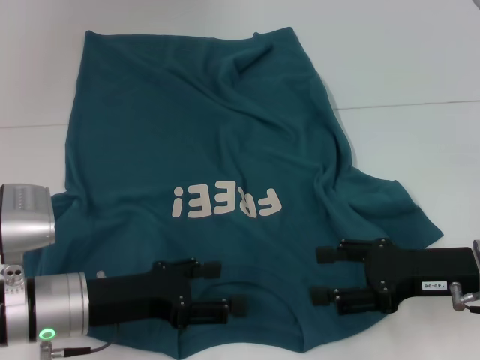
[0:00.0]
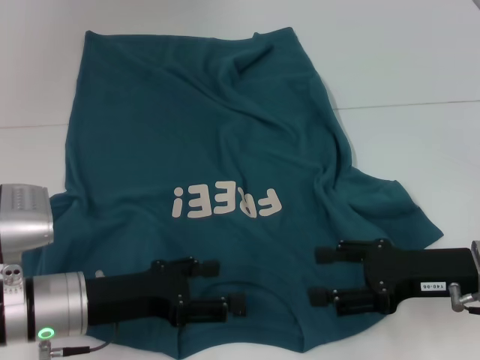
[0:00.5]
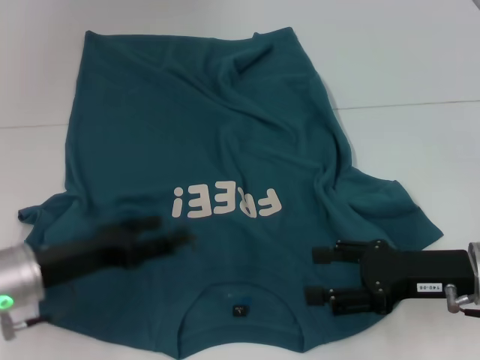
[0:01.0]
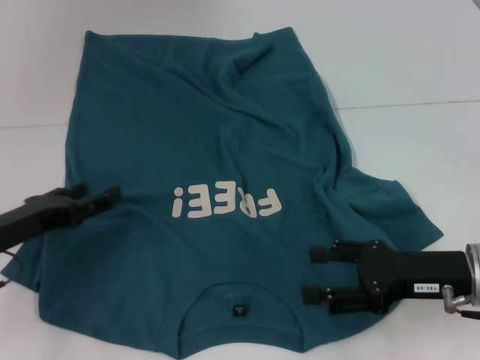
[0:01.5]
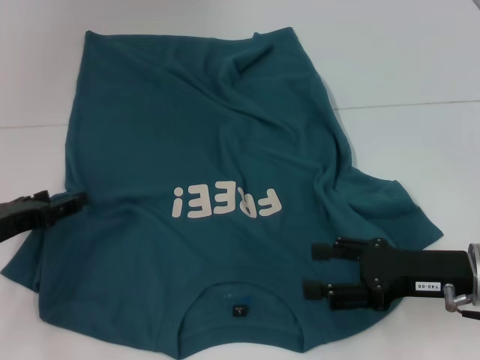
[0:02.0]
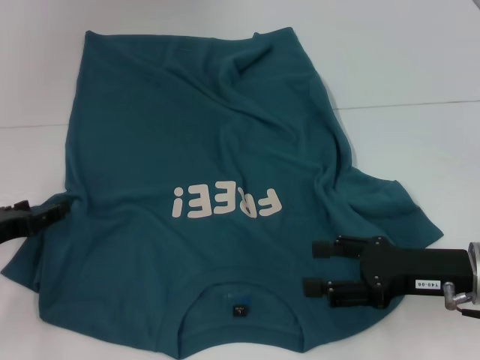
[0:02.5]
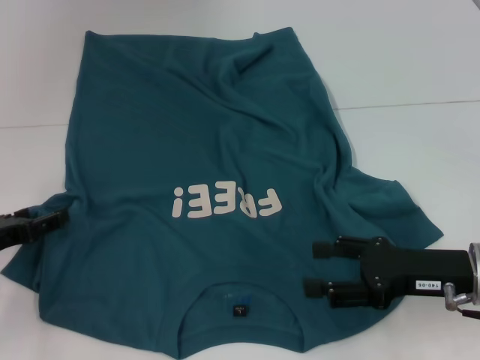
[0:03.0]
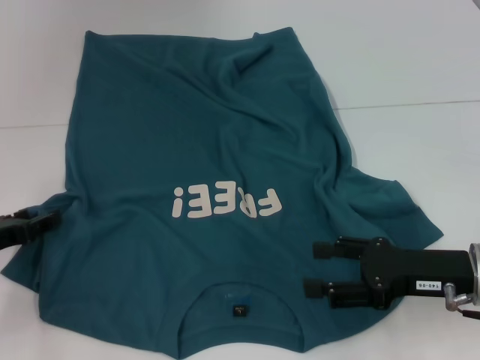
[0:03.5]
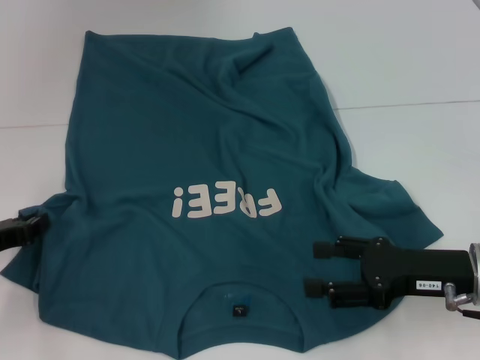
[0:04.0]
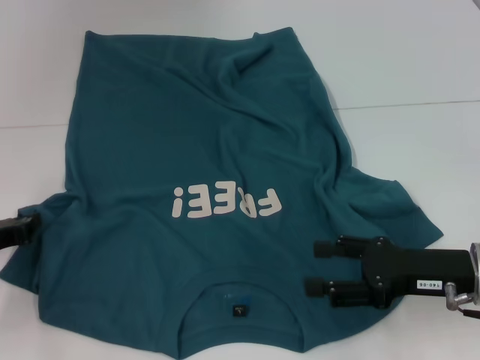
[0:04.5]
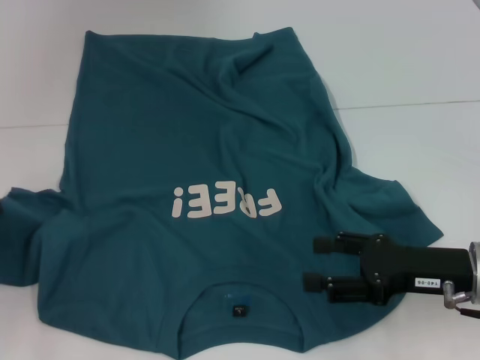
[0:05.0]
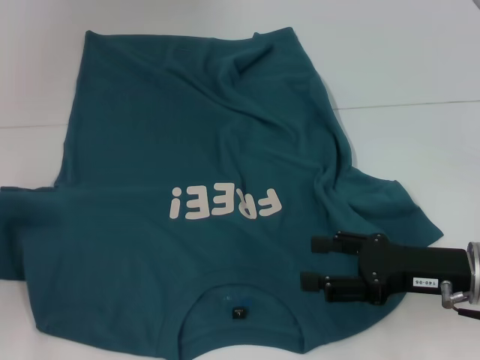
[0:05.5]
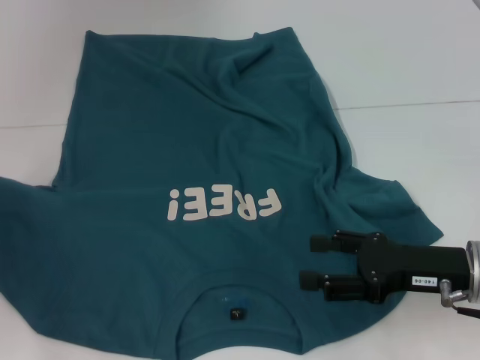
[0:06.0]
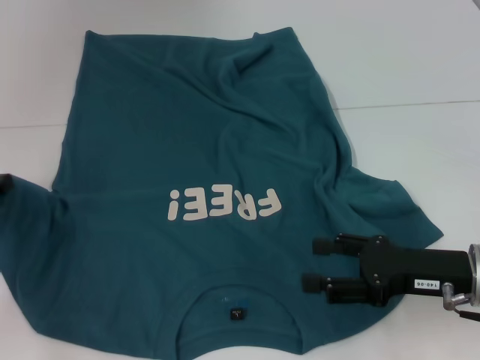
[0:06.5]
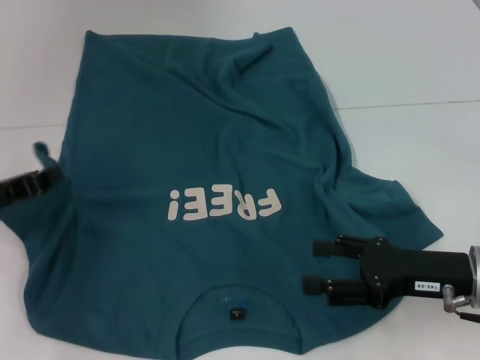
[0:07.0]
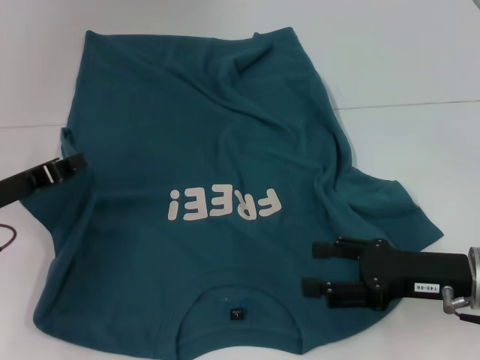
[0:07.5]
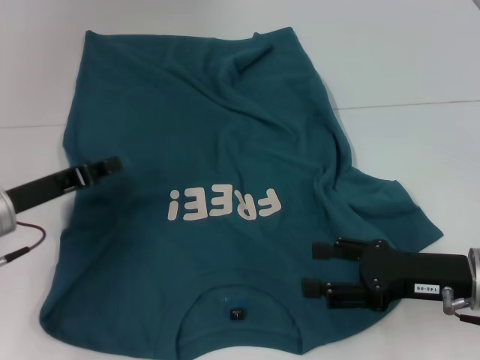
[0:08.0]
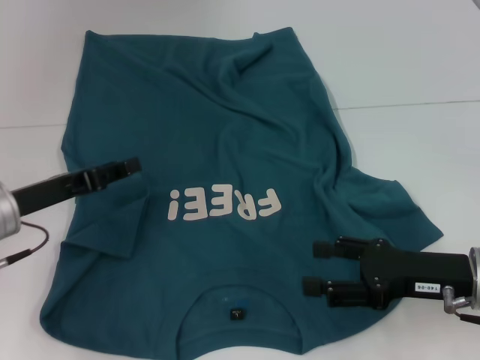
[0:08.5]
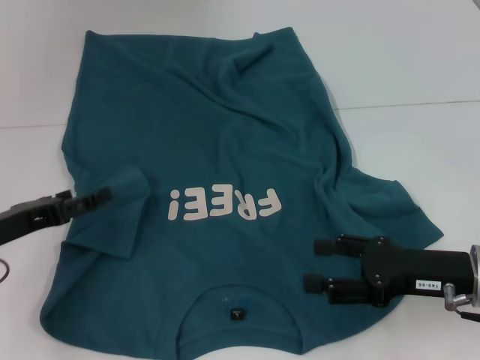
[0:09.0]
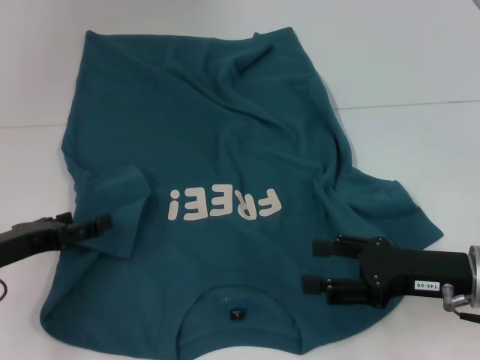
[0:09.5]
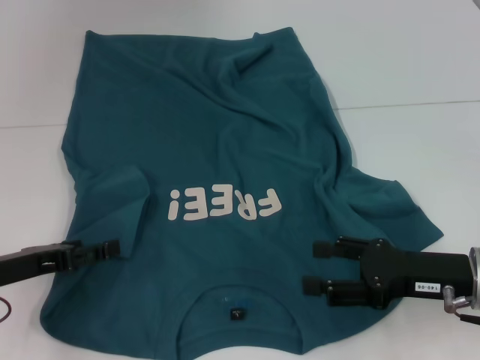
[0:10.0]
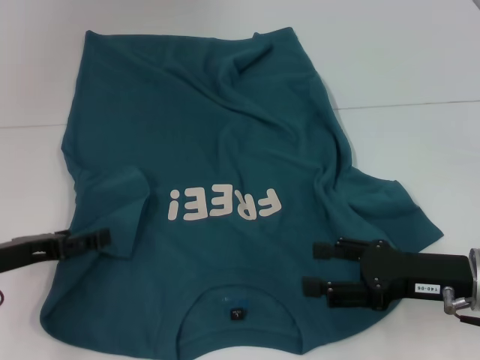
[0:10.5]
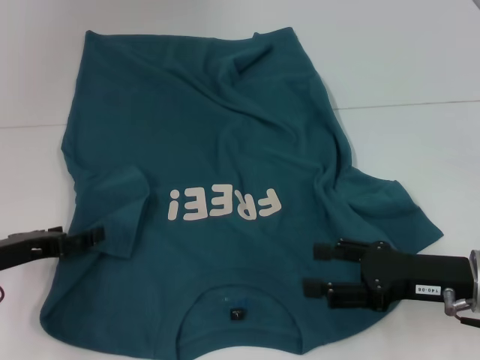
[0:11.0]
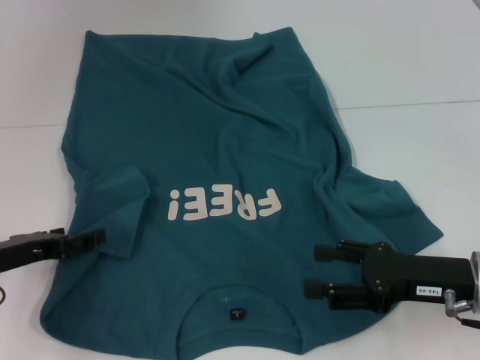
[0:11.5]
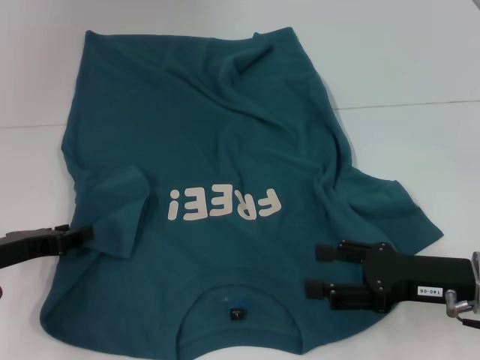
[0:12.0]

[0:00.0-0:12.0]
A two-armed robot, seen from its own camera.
0:00.0 to 0:02.0: The left gripper is displaced to the left by about 10 cm.
0:02.0 to 0:04.0: The left gripper closes its fingers.
0:04.0 to 0:06.0: The left gripper shifts by some 5 cm, and closes.
0:06.0 to 0:08.0: The left gripper moves to the right, approximately 10 cm.
0:08.0 to 0:10.0: The left gripper moves approximately 5 cm, and opens up.
0:10.0 to 0:12.0: The grippers make only small movements.

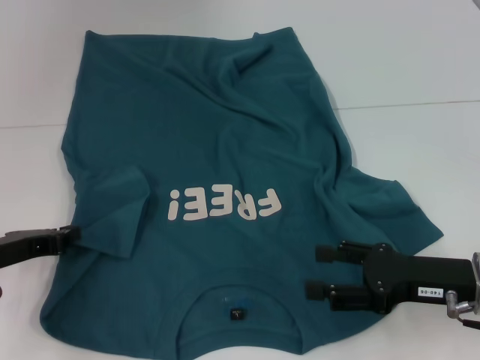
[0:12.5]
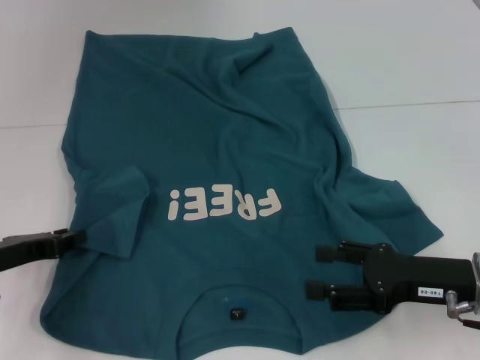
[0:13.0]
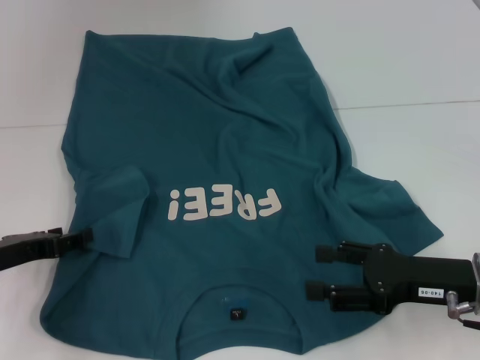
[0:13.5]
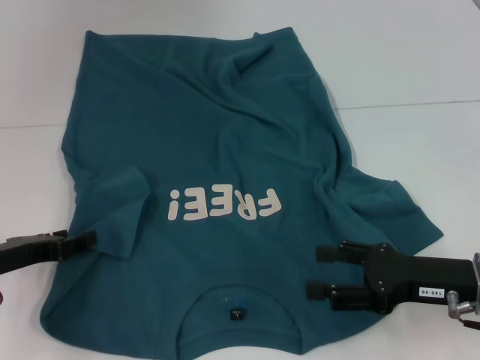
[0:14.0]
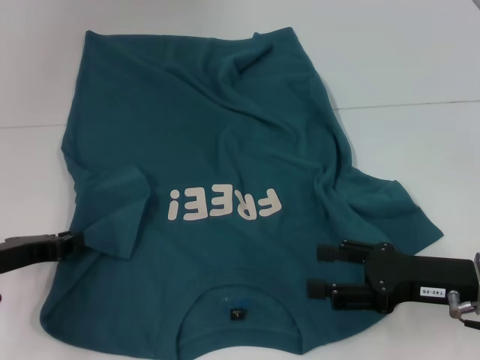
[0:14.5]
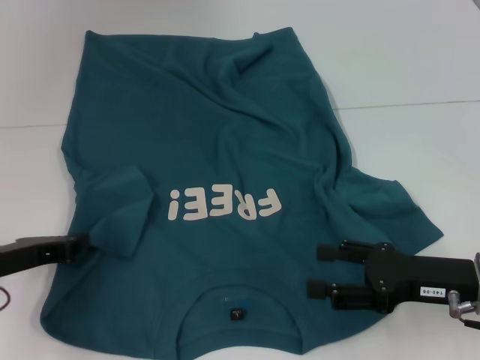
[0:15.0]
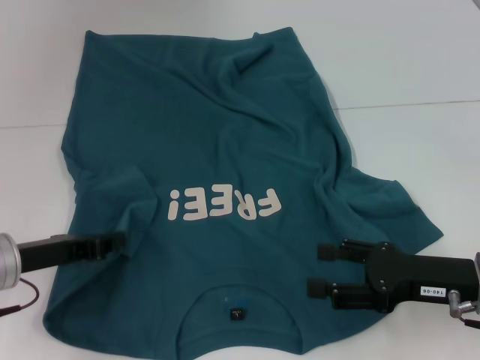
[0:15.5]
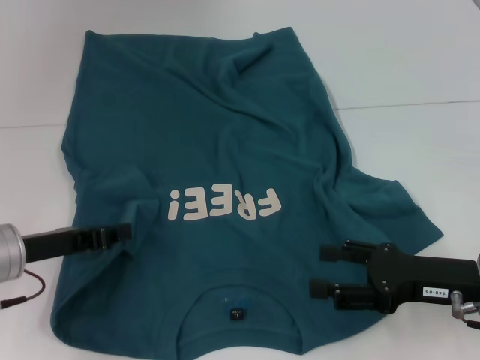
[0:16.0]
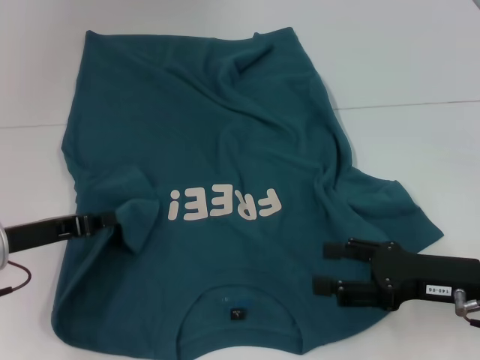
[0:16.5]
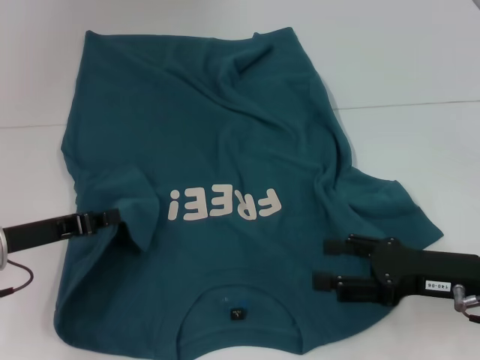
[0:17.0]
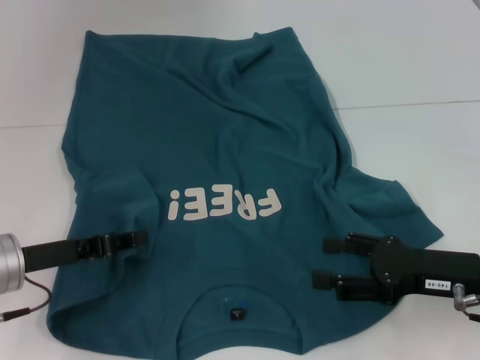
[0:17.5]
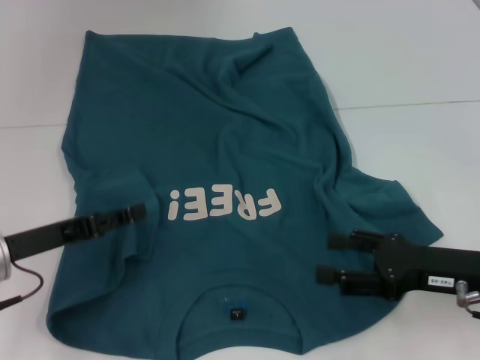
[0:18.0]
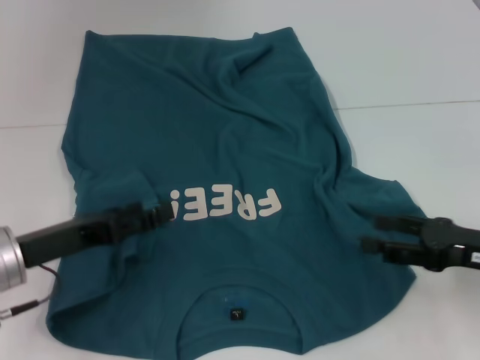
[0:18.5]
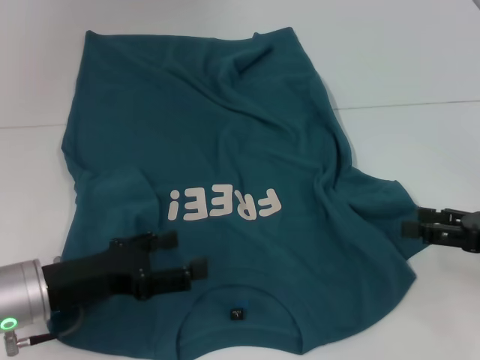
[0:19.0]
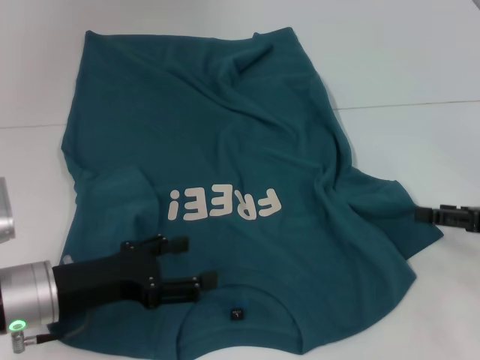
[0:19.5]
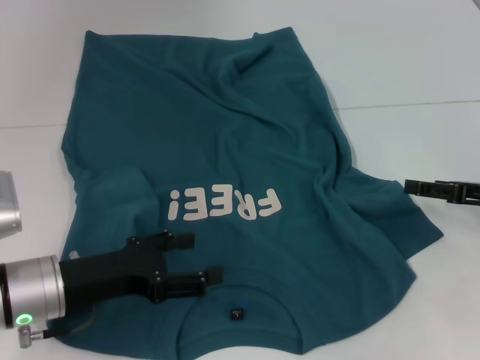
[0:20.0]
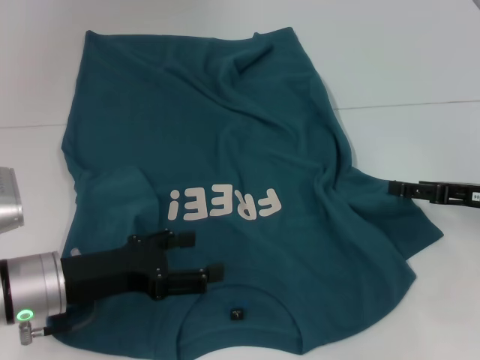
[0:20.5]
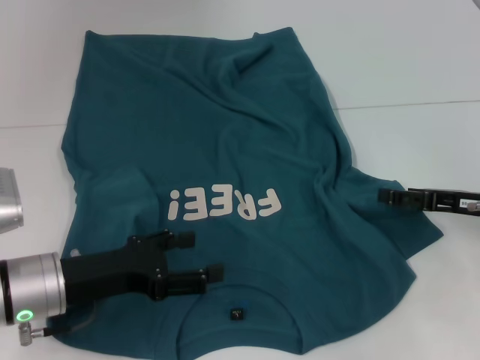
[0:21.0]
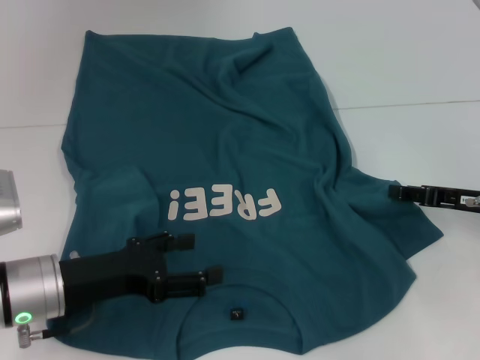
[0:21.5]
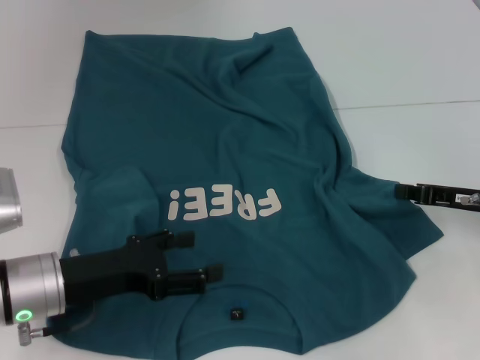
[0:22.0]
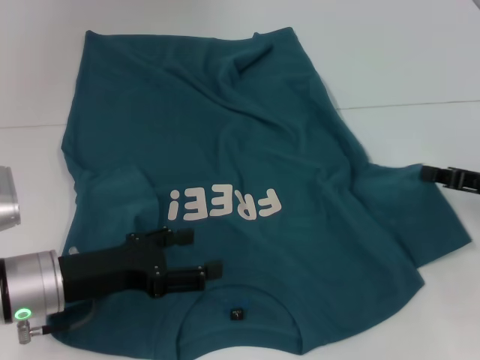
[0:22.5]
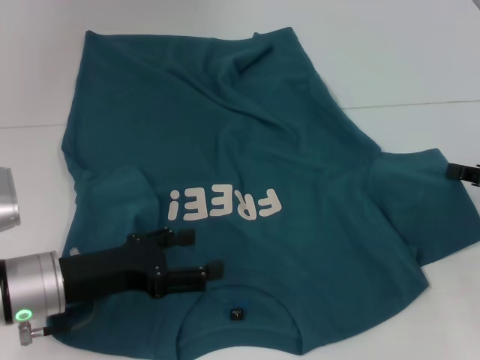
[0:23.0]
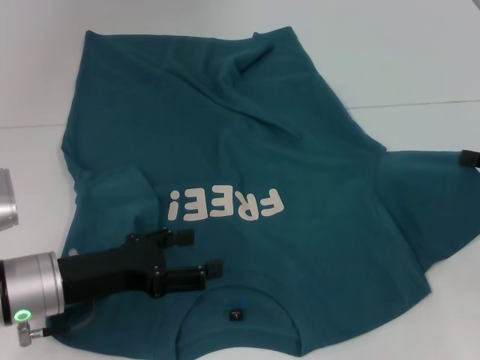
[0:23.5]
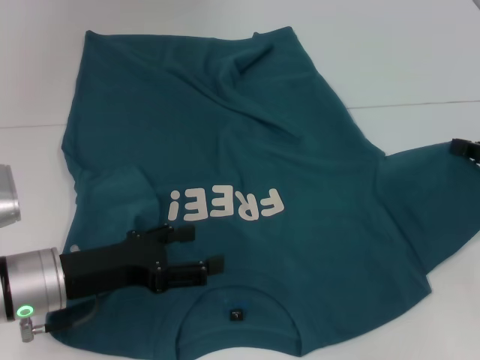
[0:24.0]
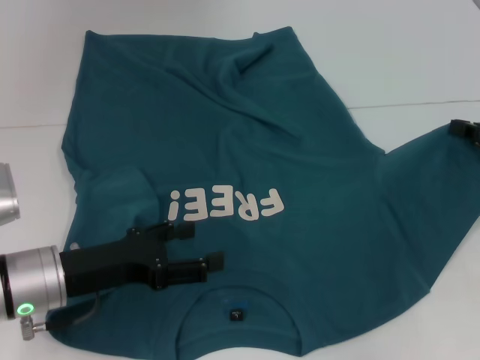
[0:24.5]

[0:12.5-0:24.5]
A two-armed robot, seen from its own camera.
Step, 0:12.5 to 0:17.5: Fold the bottom left sleeve with your left hand.
0:12.5 to 0:14.5: The two grippers keep their place.
0:14.5 to 0:16.5: The left gripper closes up.
0:16.5 to 0:18.5: The left gripper opens up.
0:18.5 to 0:20.5: The right gripper goes roughly 5 cm forward.
0:20.5 to 0:22.5: The right gripper closes up.
0:22.5 to 0:24.5: The right gripper ends up some 5 cm from where it was.

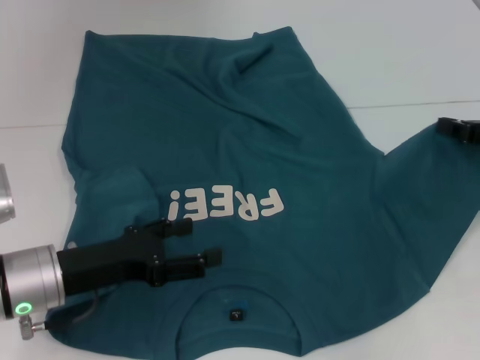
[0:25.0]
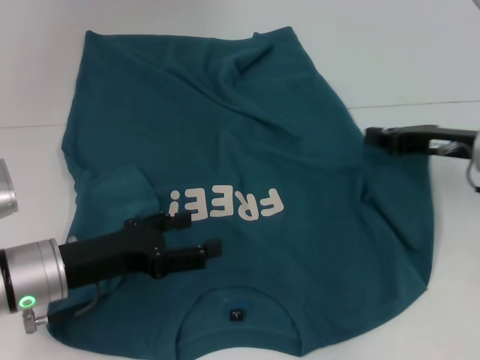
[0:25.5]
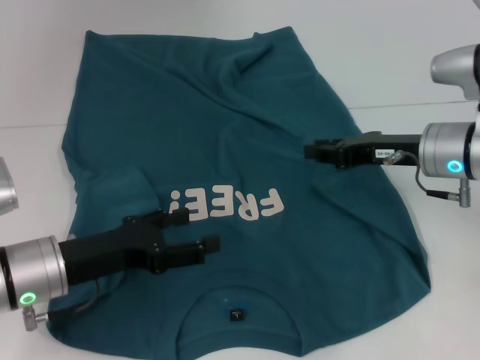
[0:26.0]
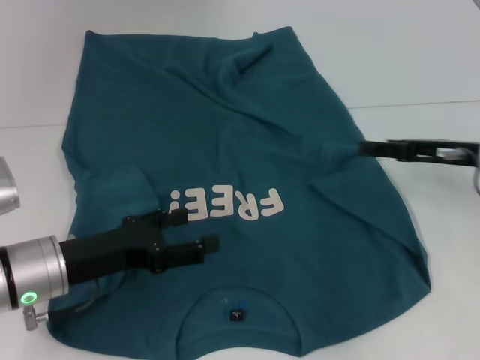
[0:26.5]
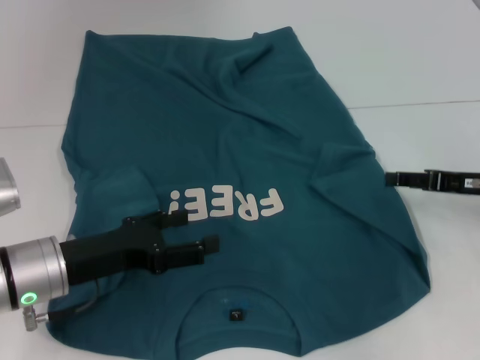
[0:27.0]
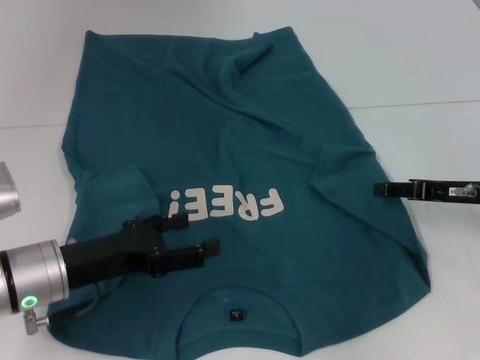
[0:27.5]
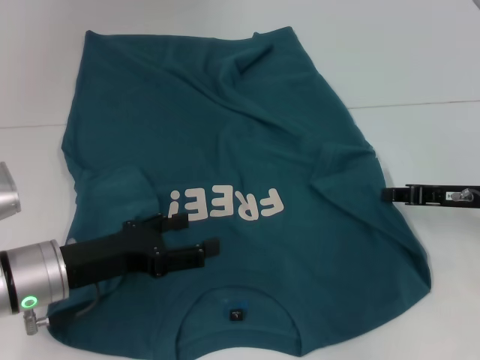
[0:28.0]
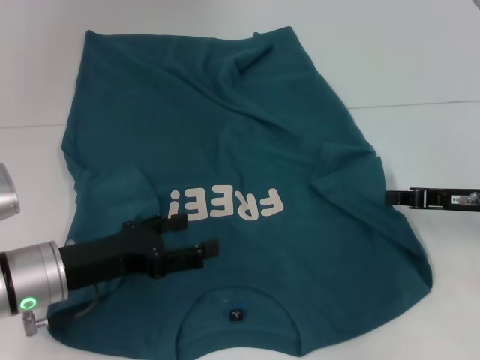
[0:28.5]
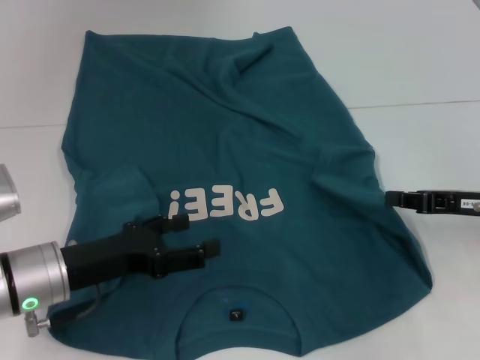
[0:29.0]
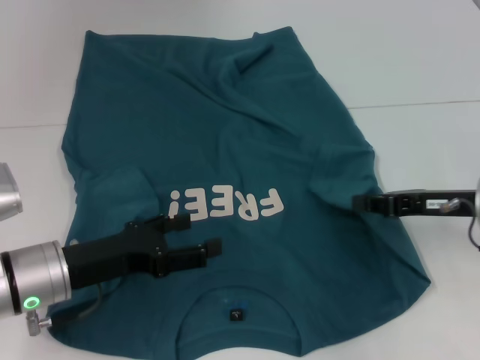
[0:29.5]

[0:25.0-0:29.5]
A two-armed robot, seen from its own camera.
0:25.0 to 0:27.0: The right gripper moves approximately 10 cm to the left and comes back, and opens.
0:27.0 to 0:29.5: The right gripper closes its fingers.
